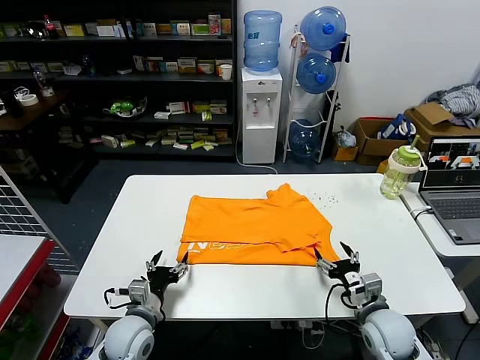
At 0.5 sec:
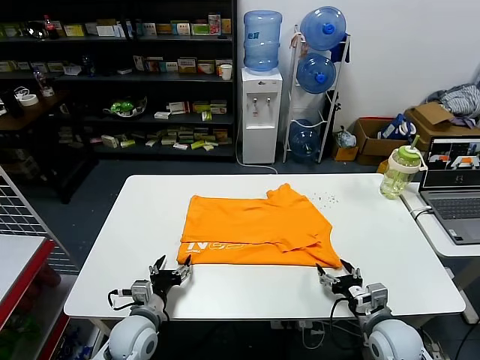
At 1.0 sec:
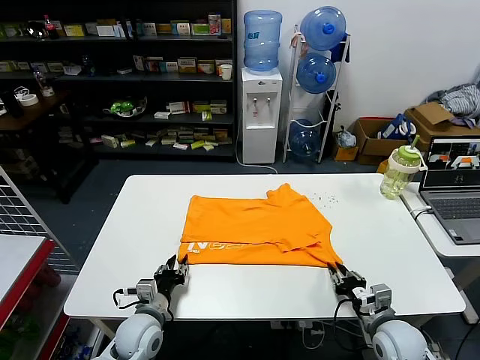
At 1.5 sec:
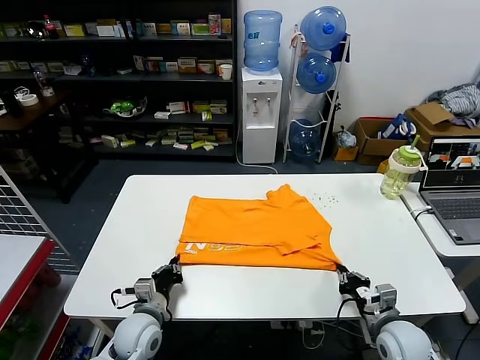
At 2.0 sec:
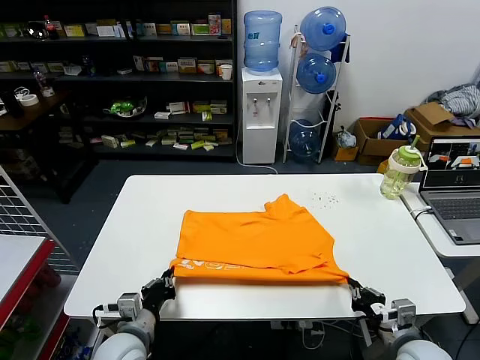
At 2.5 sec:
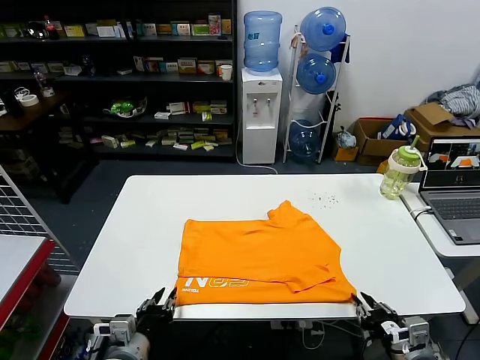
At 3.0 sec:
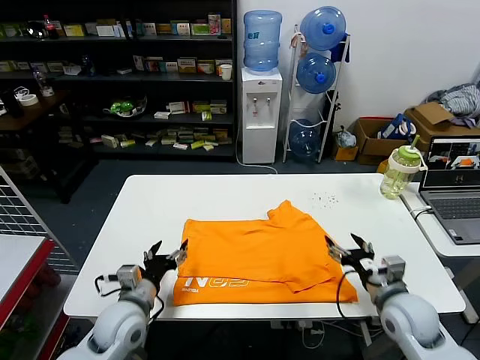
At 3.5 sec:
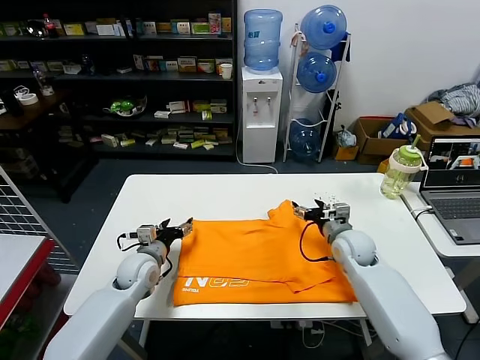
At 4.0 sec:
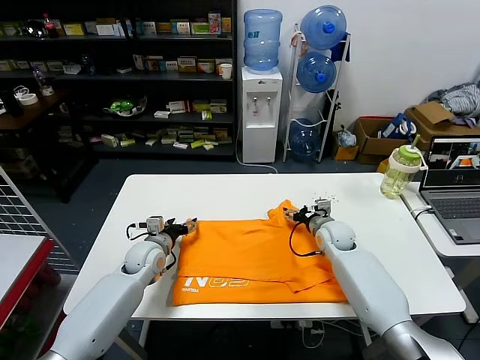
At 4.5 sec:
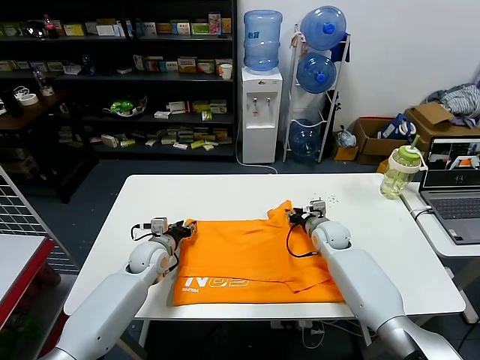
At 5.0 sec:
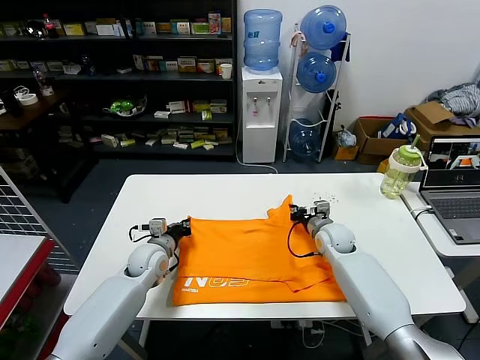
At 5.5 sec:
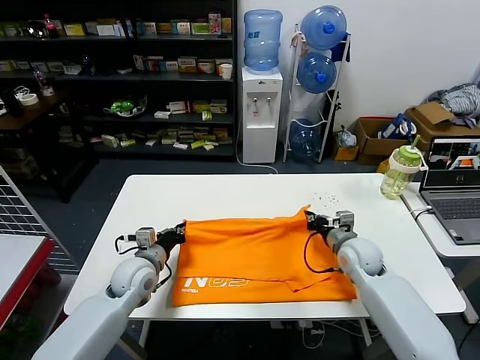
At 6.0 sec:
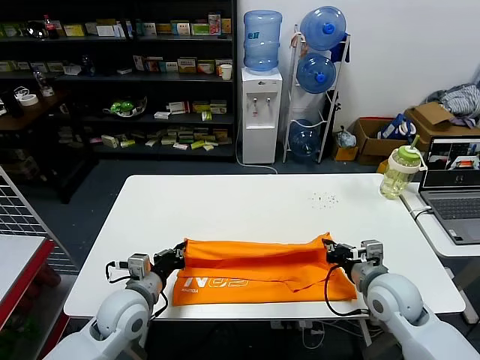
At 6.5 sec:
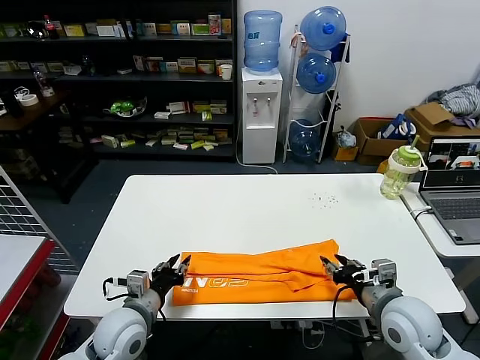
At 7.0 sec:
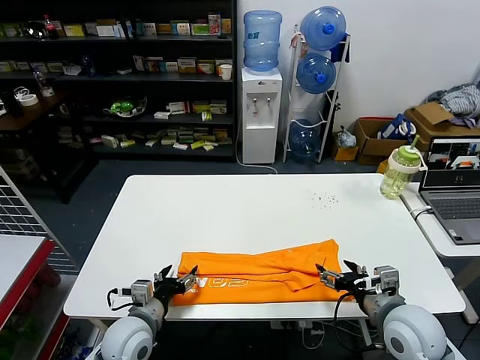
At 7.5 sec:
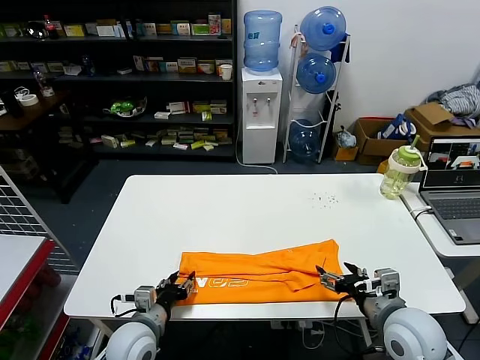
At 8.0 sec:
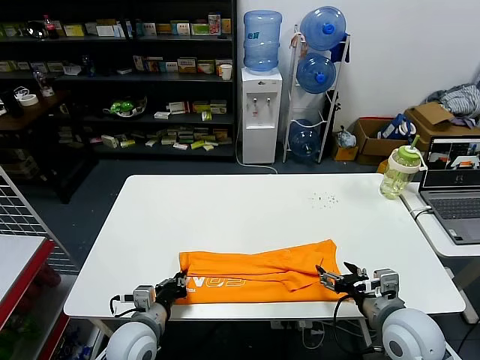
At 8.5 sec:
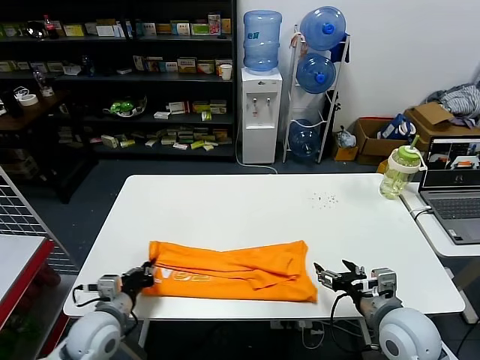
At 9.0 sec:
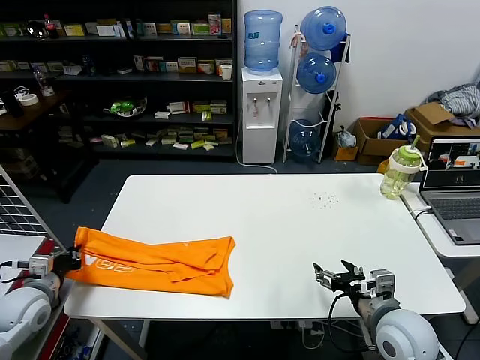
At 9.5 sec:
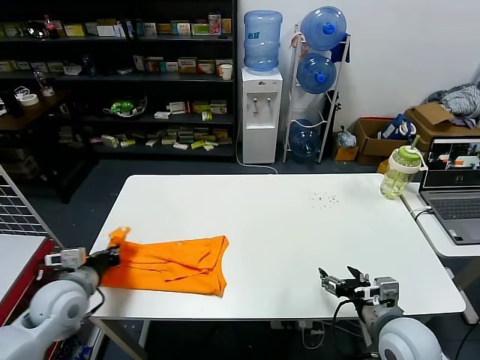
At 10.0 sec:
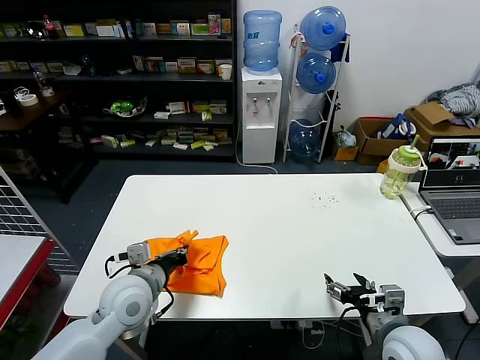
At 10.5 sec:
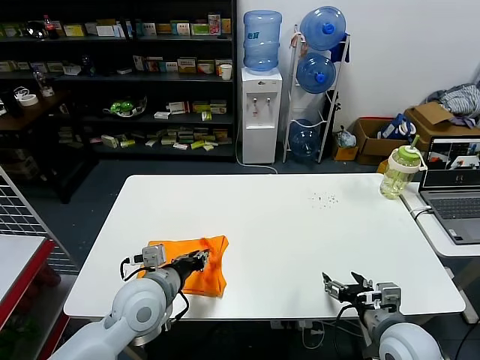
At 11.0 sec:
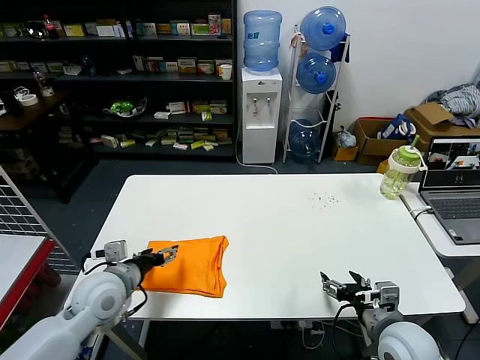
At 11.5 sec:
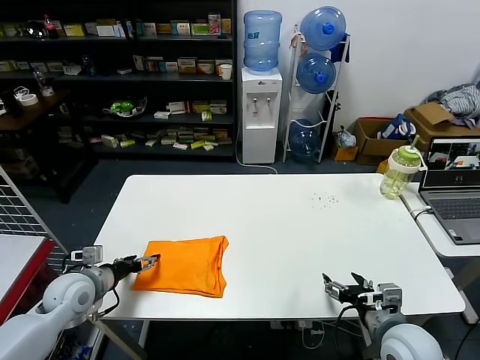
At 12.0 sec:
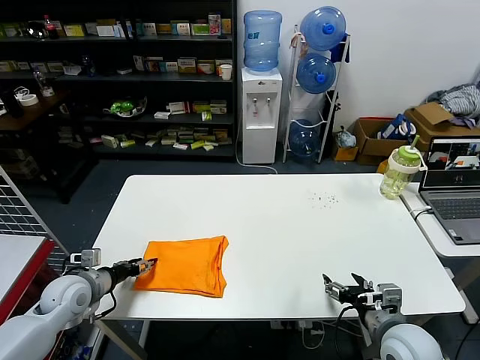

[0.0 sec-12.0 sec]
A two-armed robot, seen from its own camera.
Task of the whole recording: fold and organize the clothes.
Step, 0.0 sec to 2.0 sec: Drag the clothes downward with both gripper.
Step, 2.5 sec to 4.5 sec: use both grippers simultaneously to clamp the upper edge of the clothing fabric.
Step, 5.0 sec to 6.0 sec: use both grippers to drag the upper edge of the fabric backward and fold it over the lower edge.
Step, 6.5 sec to 8.0 sec: use the left gripper to clamp the left edge of the fabric.
Step, 8.5 sec to 10.5 sec: use the left gripper to drag the left edge of the fabric to the left and folds it over the right edge.
0.0 sec to 2.0 sec: The right gripper travels backward by some 5 cm, and closes up; the left gripper shifts by approximately 5 cm, and closes up.
2.0 sec to 4.0 sec: Both grippers move forward, approximately 25 cm. The right gripper opens. Meanwhile the left gripper opens.
4.0 sec to 6.0 sec: The grippers both shift backward by some 15 cm. The right gripper closes. Meanwhile the left gripper closes.
6.0 sec to 8.0 sec: The left gripper goes roughly 5 cm downward, and opens and closes again, while the right gripper travels backward by some 5 cm, and opens its fingers.
8.0 sec to 10.0 sec: The left gripper shifts approximately 10 cm upward and forward, and travels to the left and back again, some 25 cm each way.
10.0 sec to 12.0 sec: The left gripper shifts some 15 cm to the left, and opens its fingers.

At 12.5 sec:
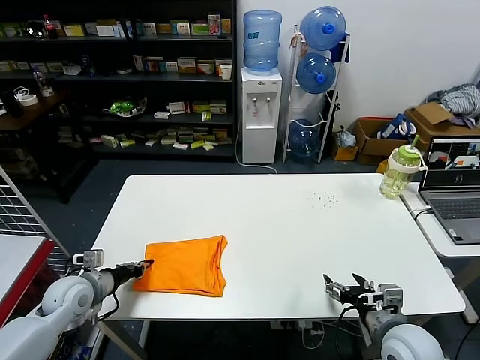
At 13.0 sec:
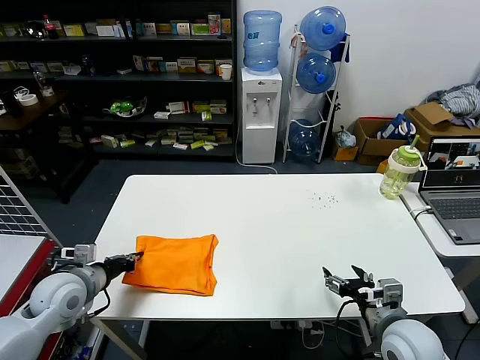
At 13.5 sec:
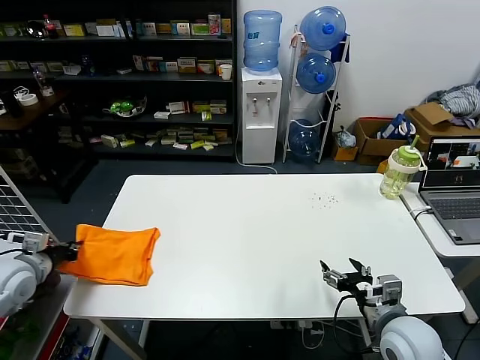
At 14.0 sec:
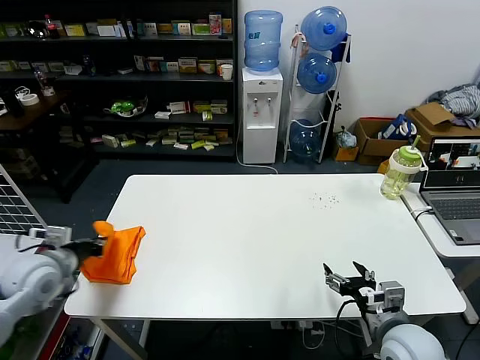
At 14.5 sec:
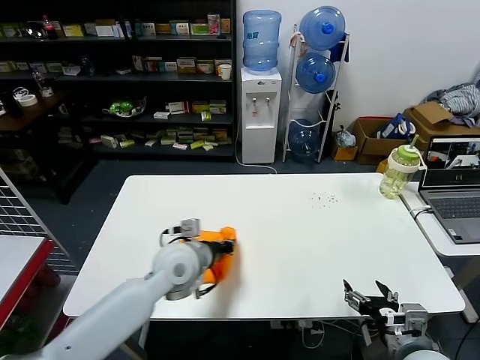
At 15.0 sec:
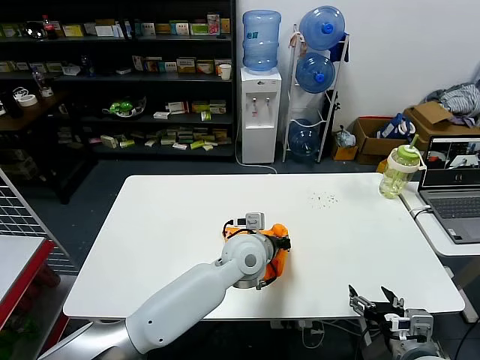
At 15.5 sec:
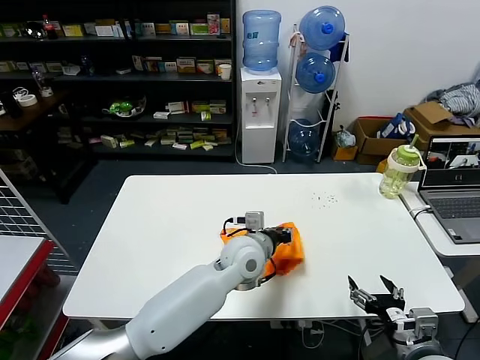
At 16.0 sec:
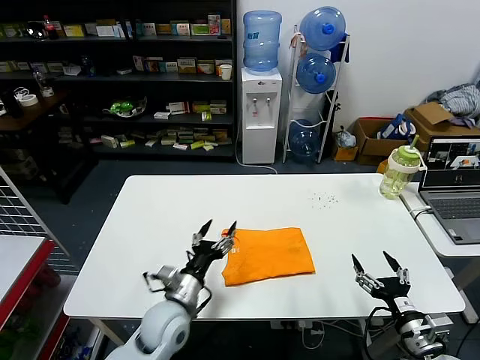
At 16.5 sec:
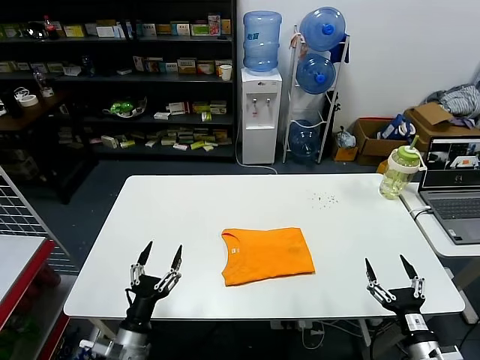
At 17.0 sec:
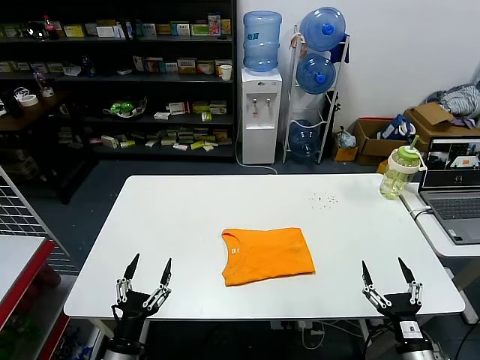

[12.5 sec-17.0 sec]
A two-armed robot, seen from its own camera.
Task of the whole recording: fold and organize the clothes.
Step, 12.5 sec to 15.0 sec: Flip the folded clothes over with left gripper.
12.5 sec to 14.5 sec: The left gripper is displaced to the right by some 25 cm.
14.5 sec to 17.0 sec: The right gripper goes approximately 10 cm downward, while the left gripper travels backward, downward and to the left by roughly 30 cm, and opens.
